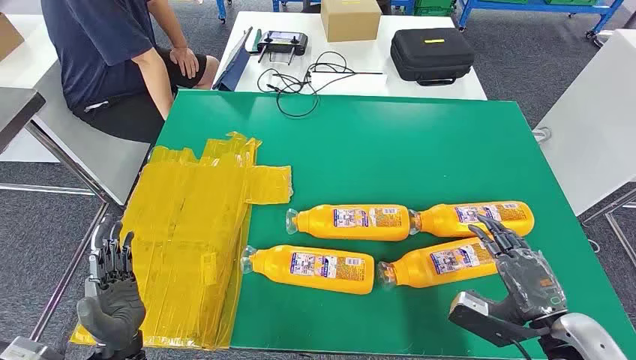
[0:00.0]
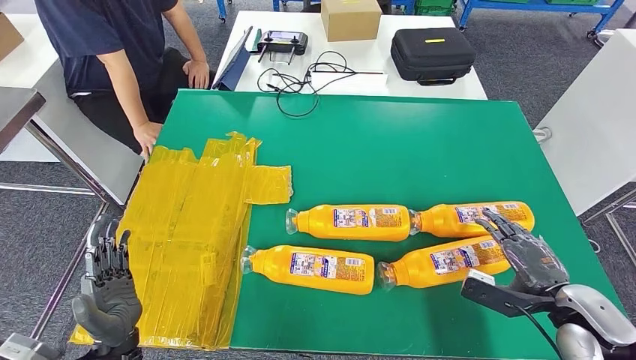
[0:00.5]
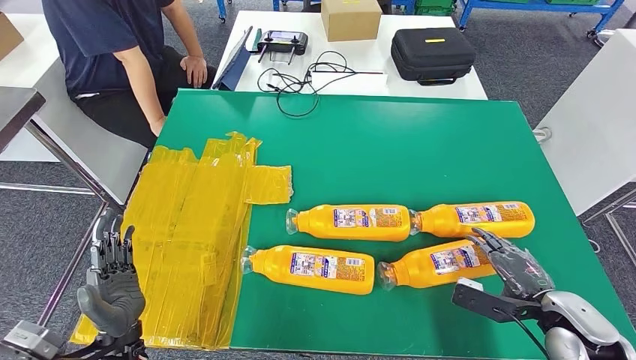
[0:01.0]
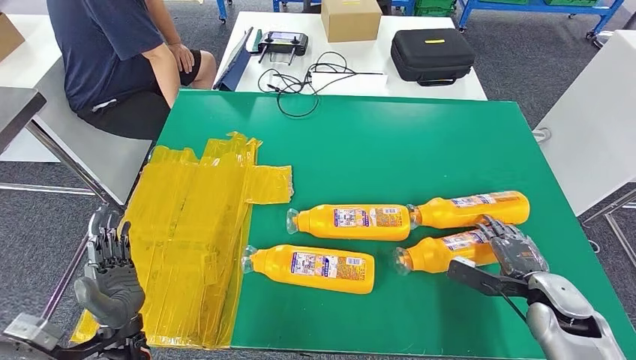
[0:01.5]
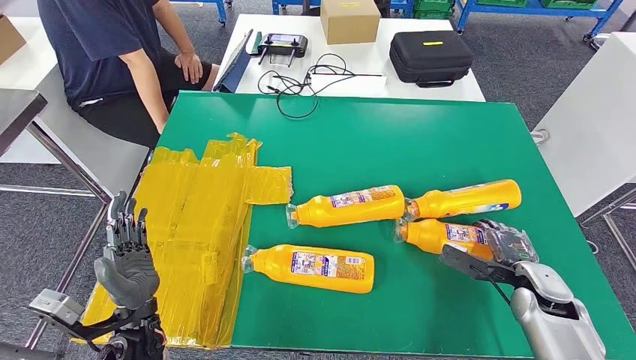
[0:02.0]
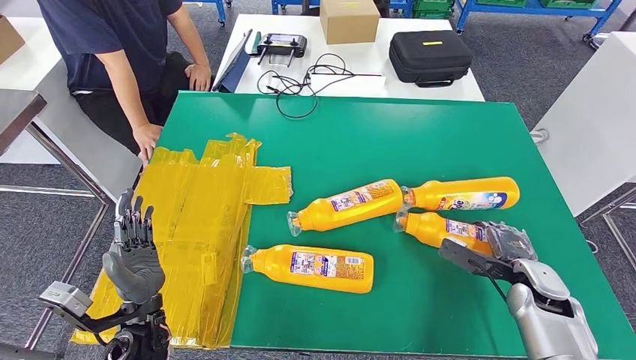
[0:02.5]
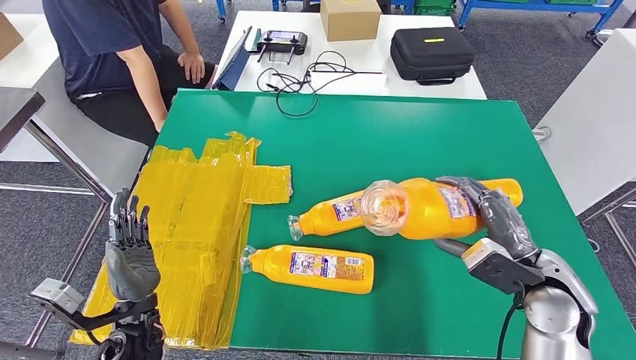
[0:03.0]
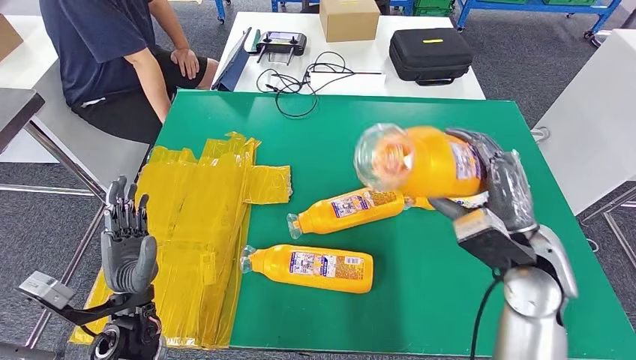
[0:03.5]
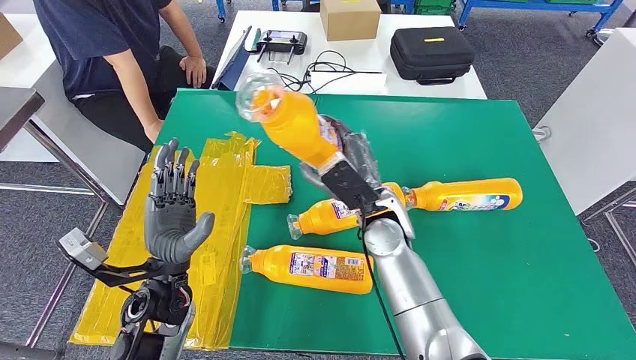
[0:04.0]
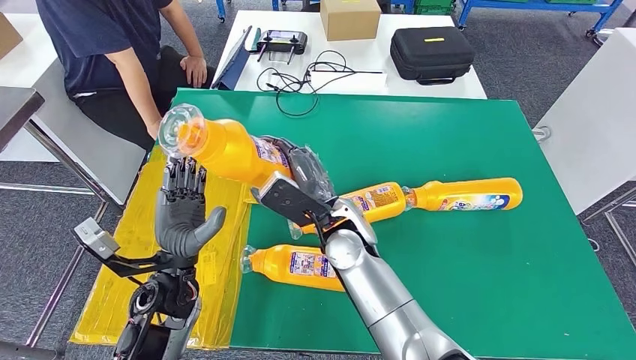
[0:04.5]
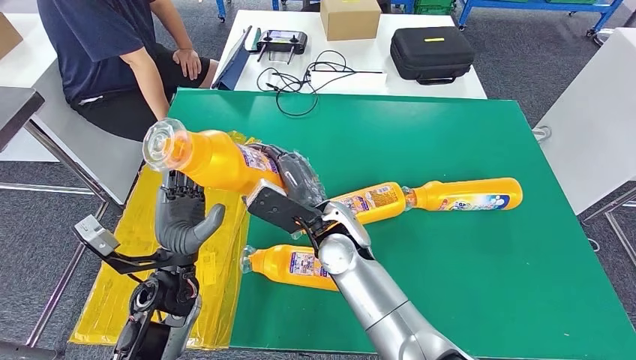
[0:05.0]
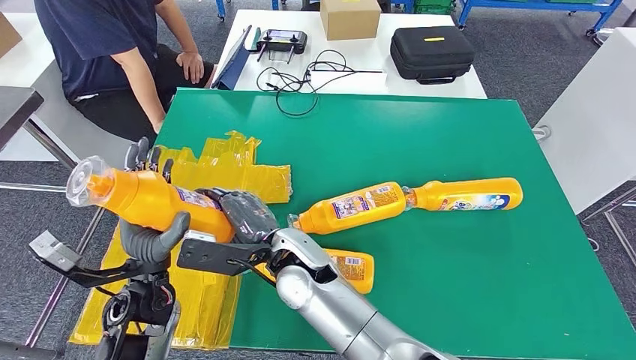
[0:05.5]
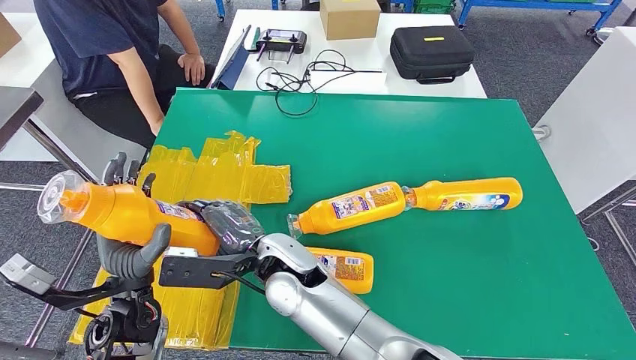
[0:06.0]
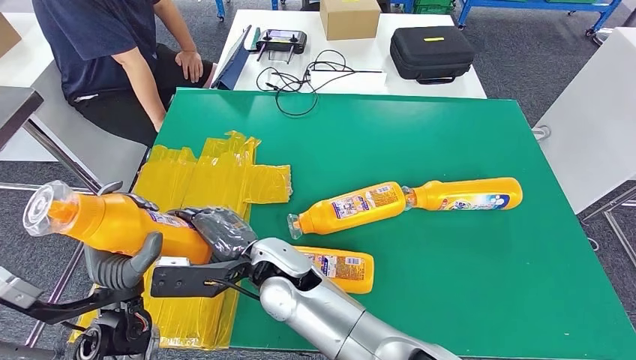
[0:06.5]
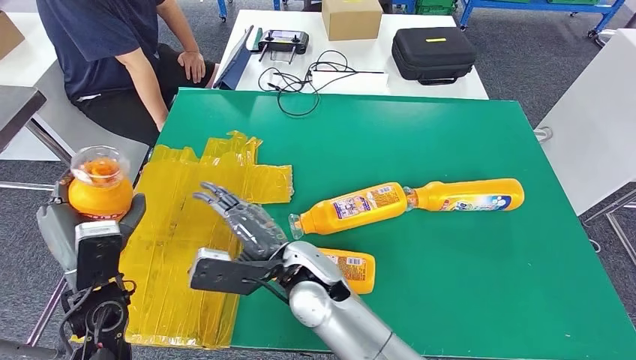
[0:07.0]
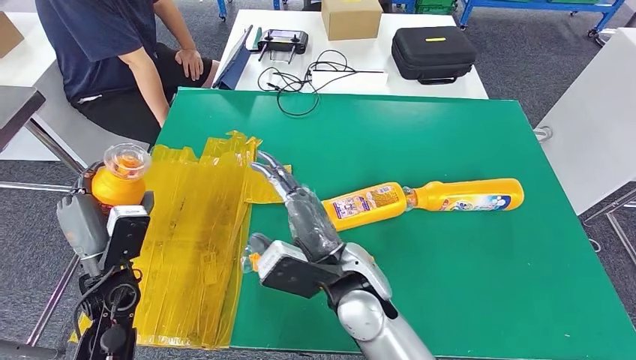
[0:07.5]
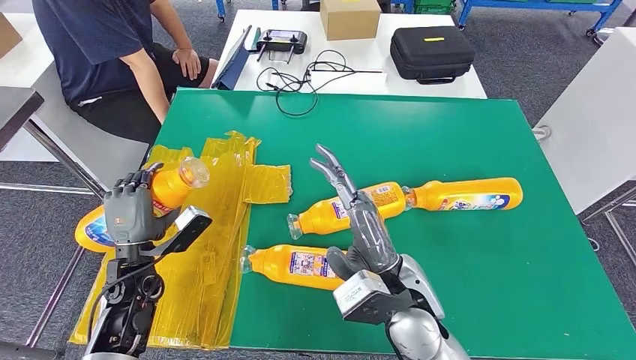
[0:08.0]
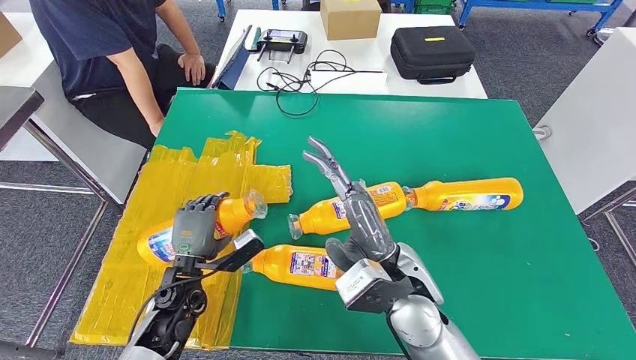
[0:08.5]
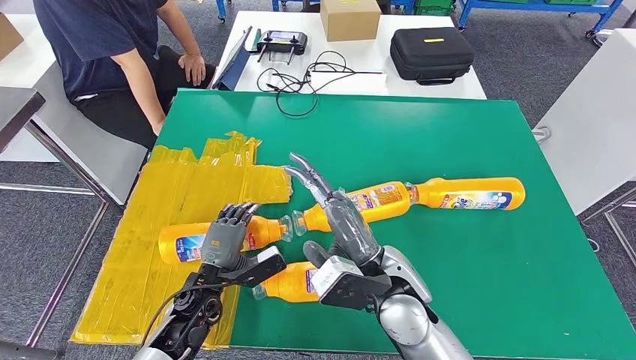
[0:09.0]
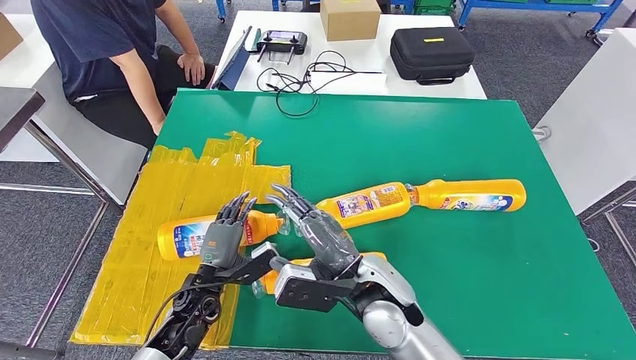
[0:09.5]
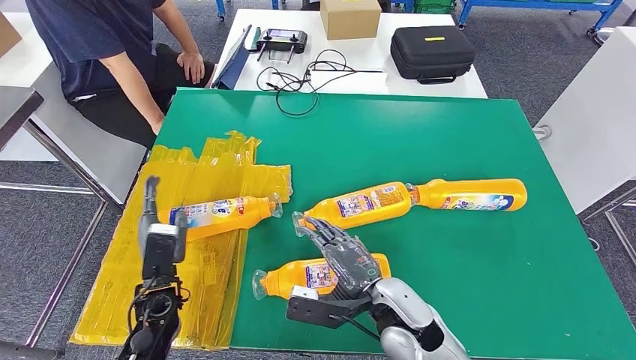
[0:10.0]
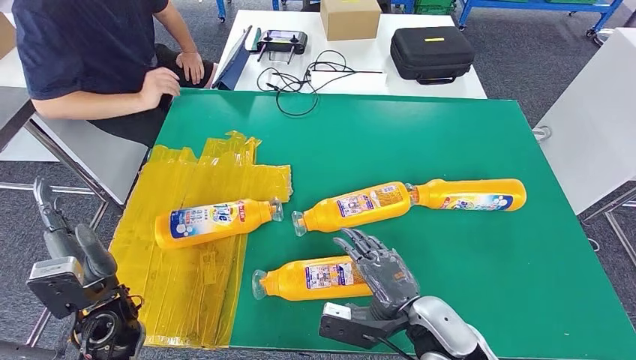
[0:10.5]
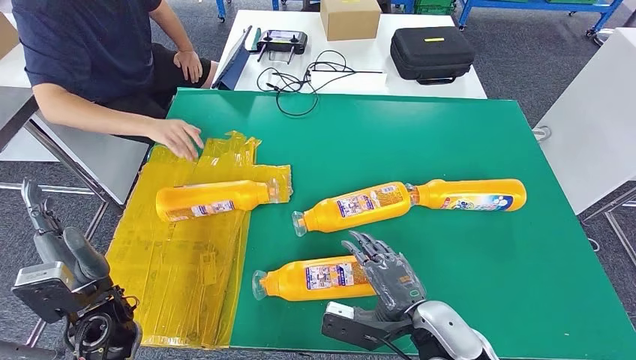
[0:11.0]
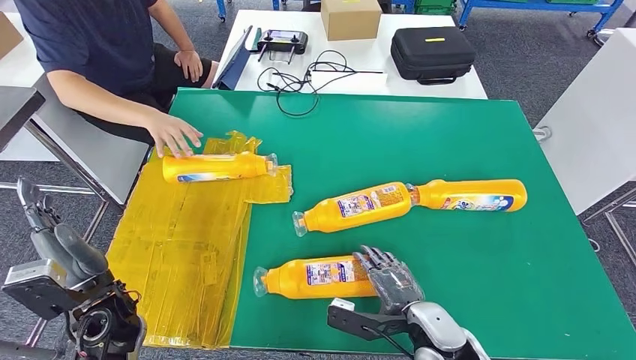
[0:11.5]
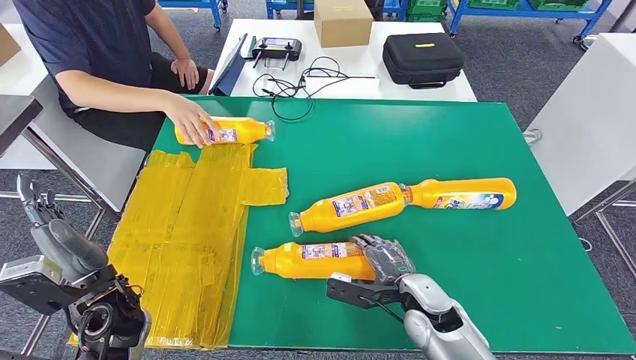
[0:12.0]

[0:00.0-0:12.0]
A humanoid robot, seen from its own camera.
Step, 0:00.0 to 0:03.5: Take the fast-moving consumer goods bottle from the table.
Step, 0:04.0 to 0:11.0: Flip the fast-moving consumer goods bottle to the front side.
0:08.0 to 0:10.0: The right hand goes some 10 cm downward.

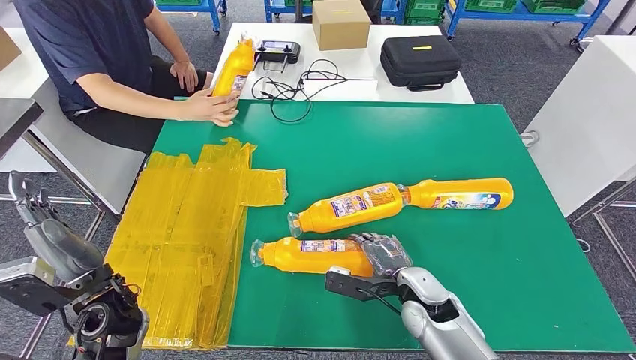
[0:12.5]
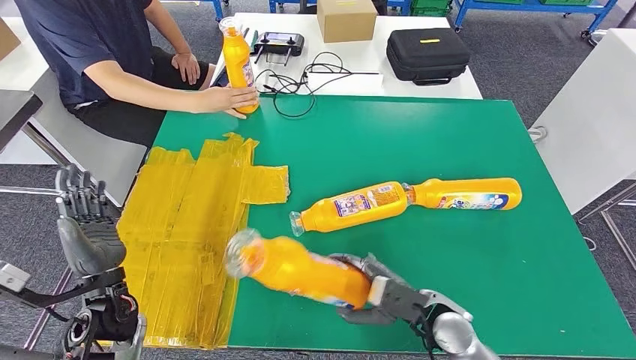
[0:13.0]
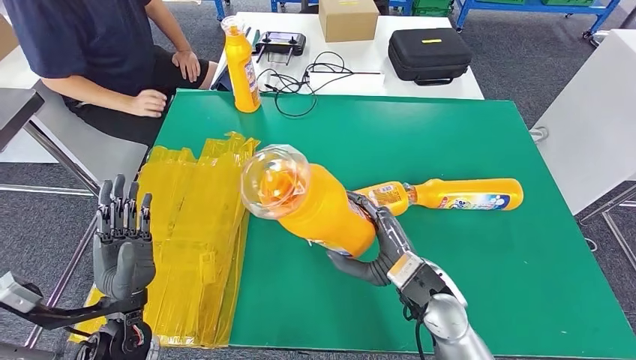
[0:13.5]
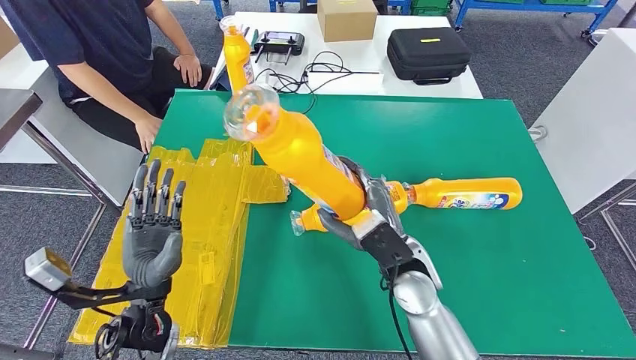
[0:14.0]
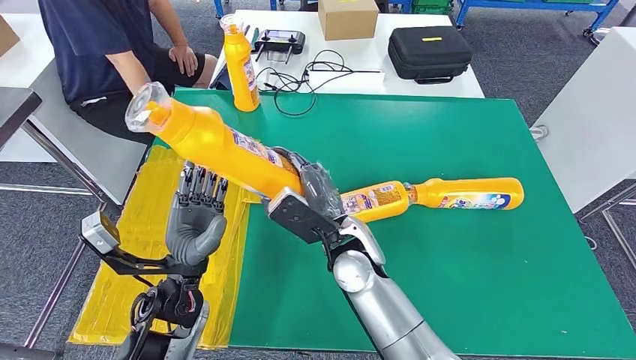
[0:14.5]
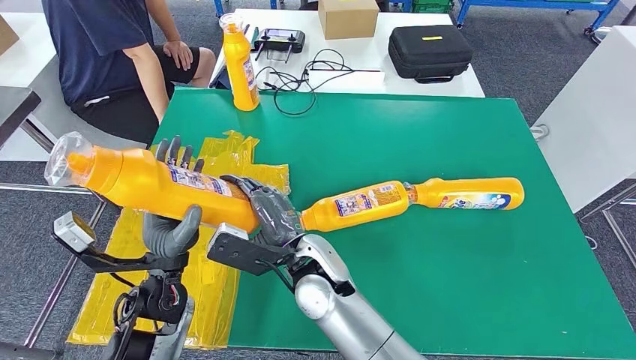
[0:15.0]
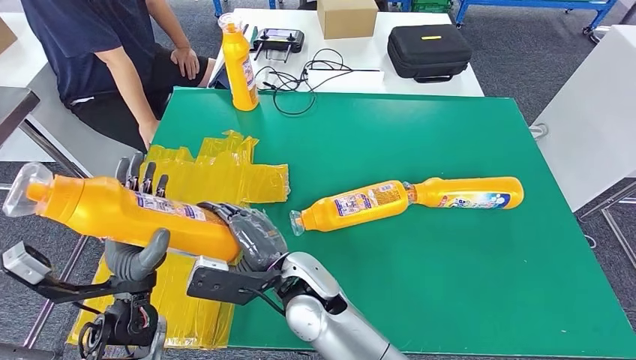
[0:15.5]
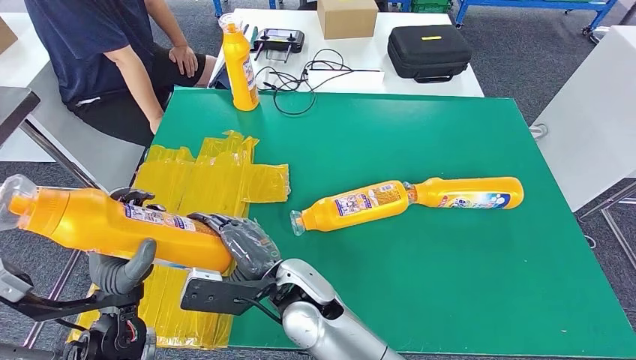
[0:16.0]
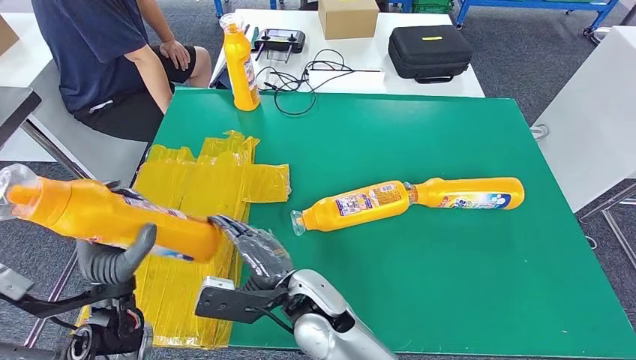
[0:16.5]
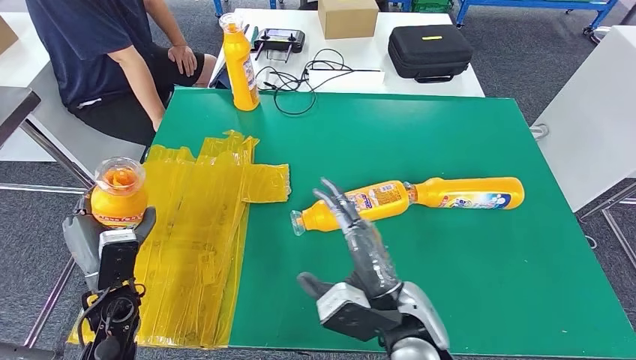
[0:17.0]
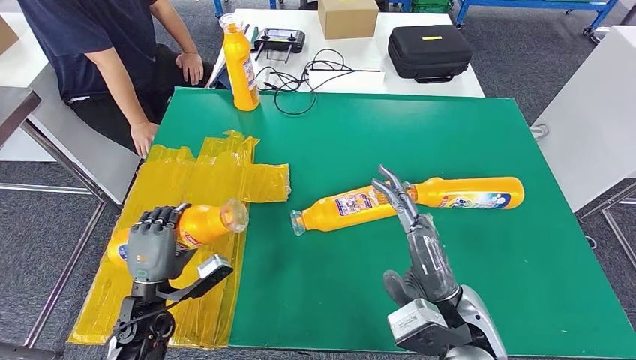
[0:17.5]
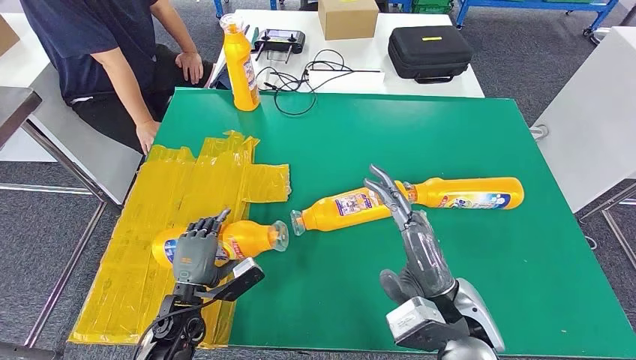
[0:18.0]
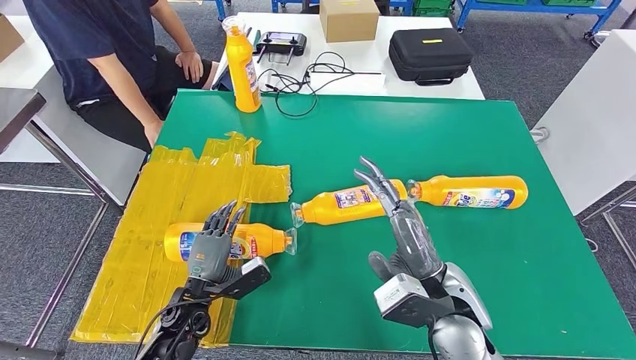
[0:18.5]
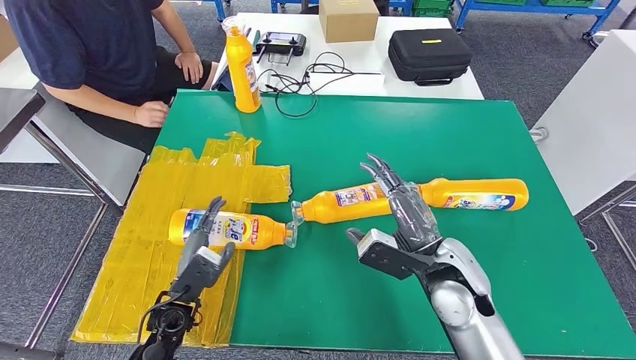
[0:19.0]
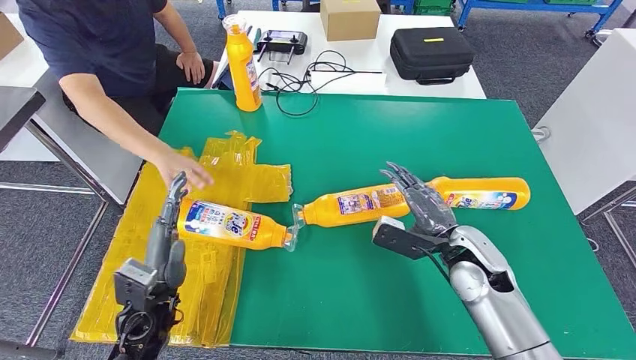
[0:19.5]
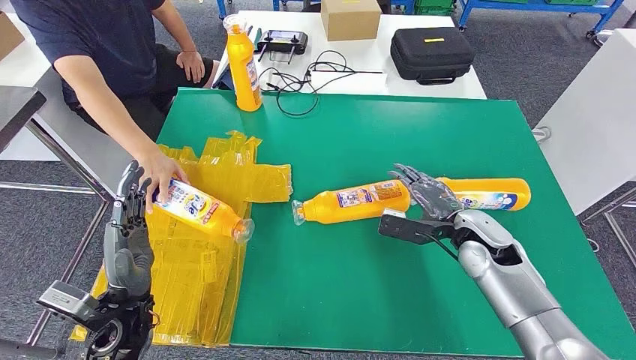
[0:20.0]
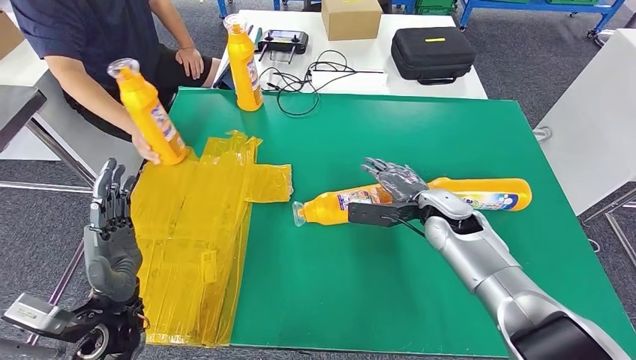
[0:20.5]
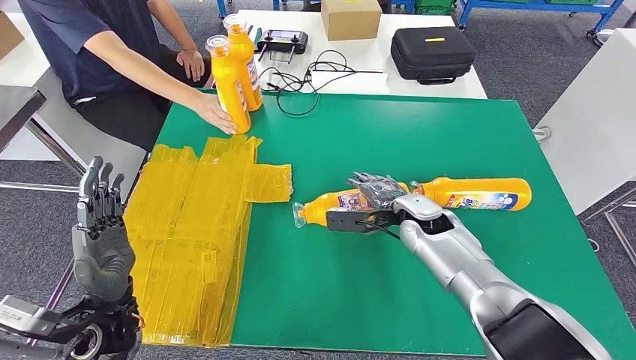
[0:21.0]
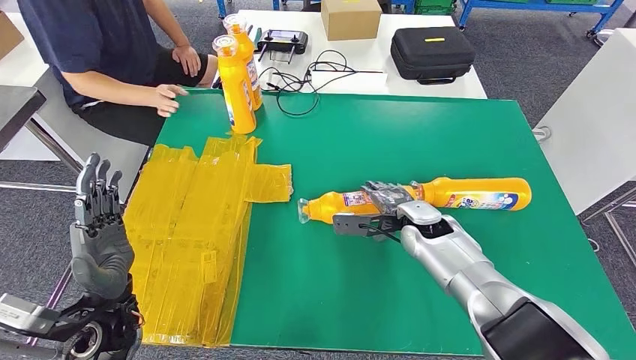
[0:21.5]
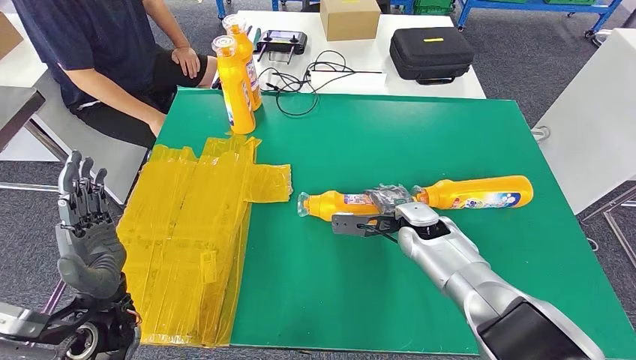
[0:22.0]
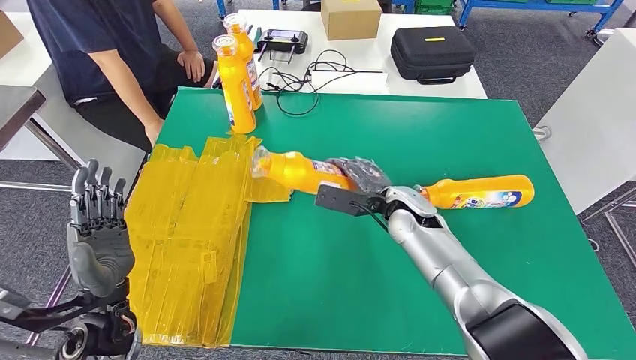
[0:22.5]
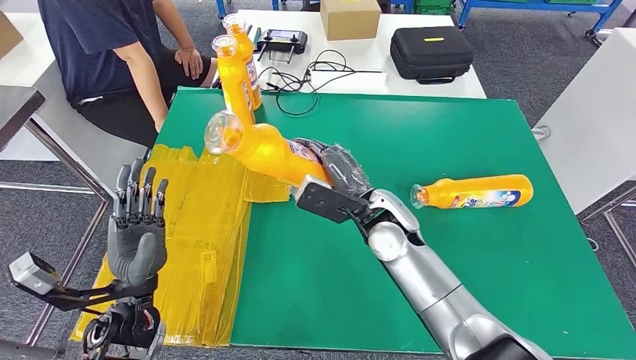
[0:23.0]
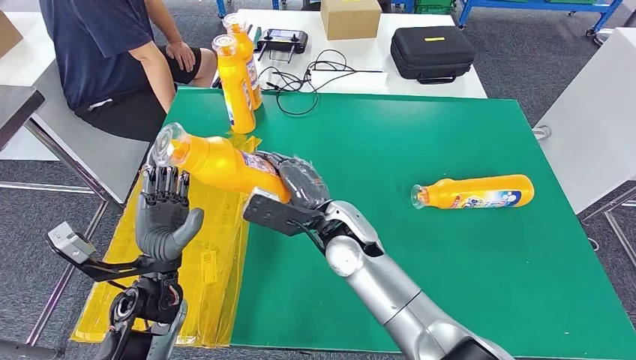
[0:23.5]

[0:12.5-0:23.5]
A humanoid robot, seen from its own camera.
Step, 0:12.5 to 0:16.0: Pick up the fast-moving consumer goods bottle from the table.
Step, 0:16.5 to 0:20.5: Flip the fast-moving consumer goods bottle to the front side.
